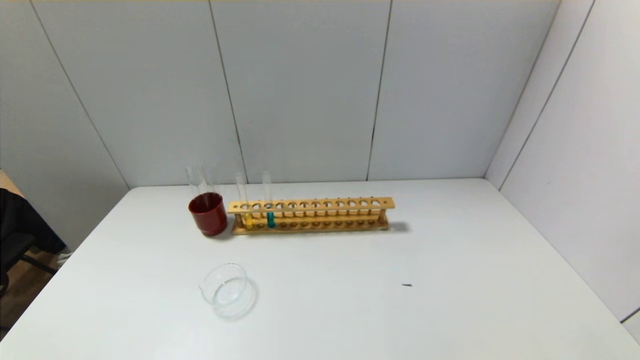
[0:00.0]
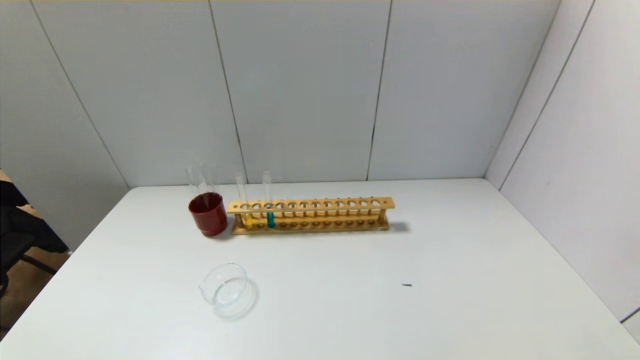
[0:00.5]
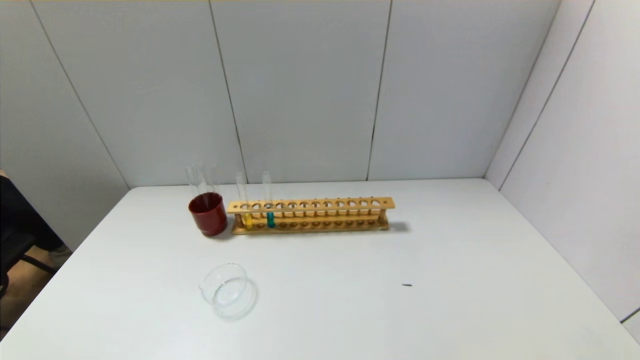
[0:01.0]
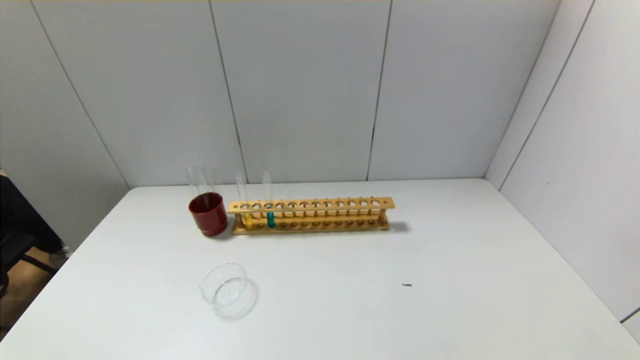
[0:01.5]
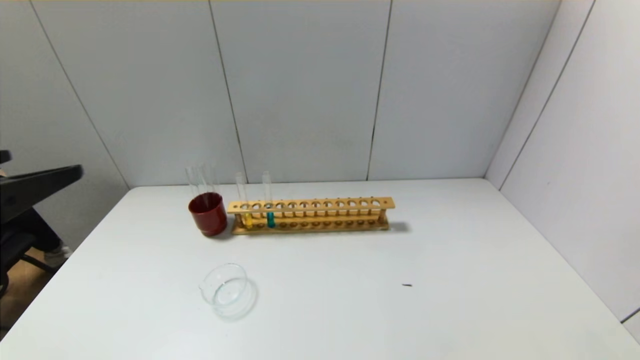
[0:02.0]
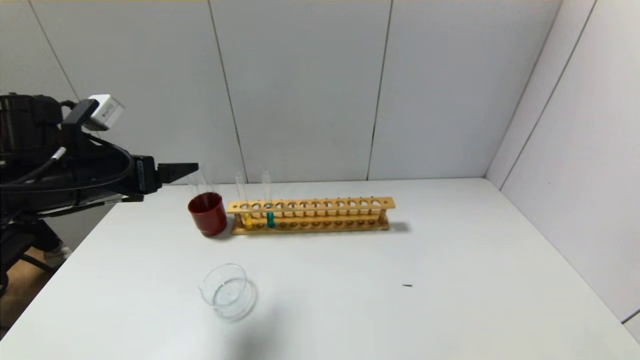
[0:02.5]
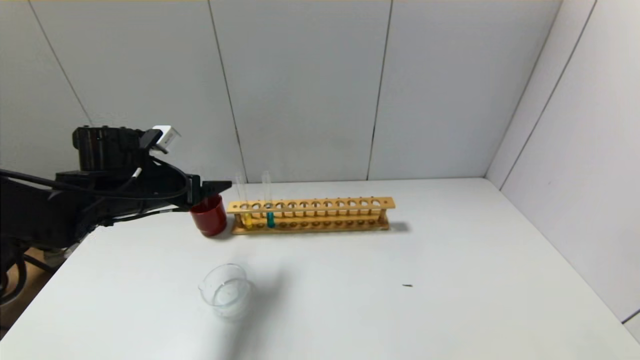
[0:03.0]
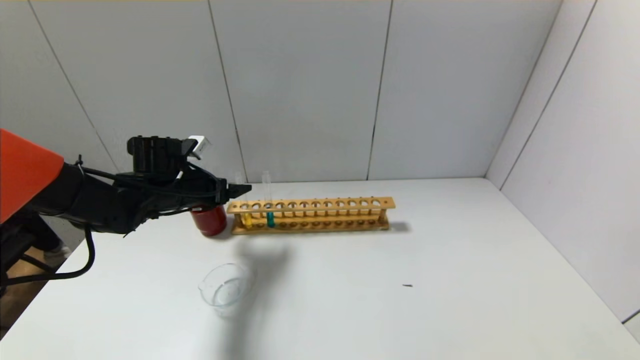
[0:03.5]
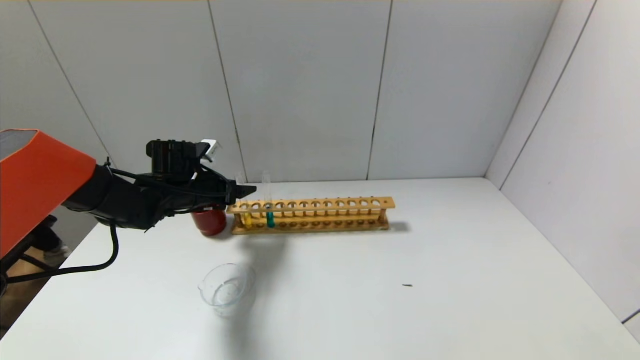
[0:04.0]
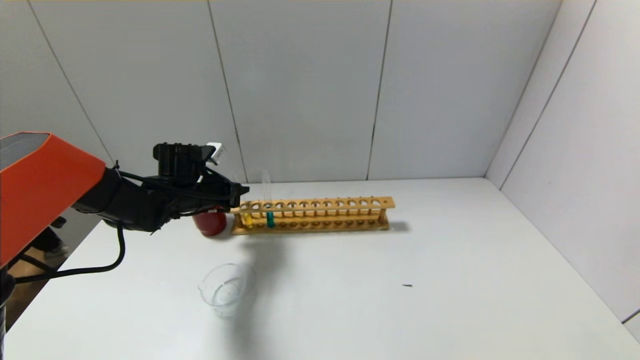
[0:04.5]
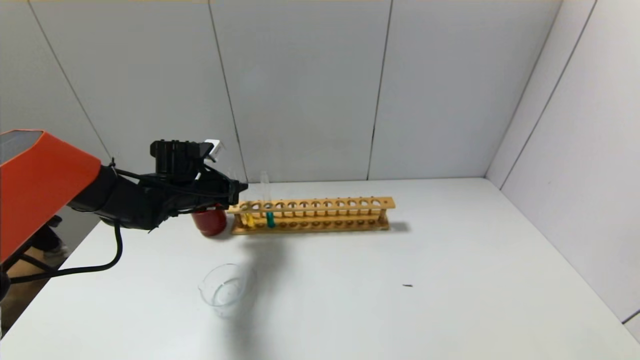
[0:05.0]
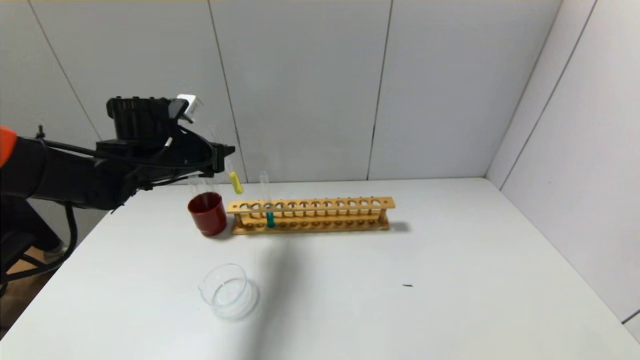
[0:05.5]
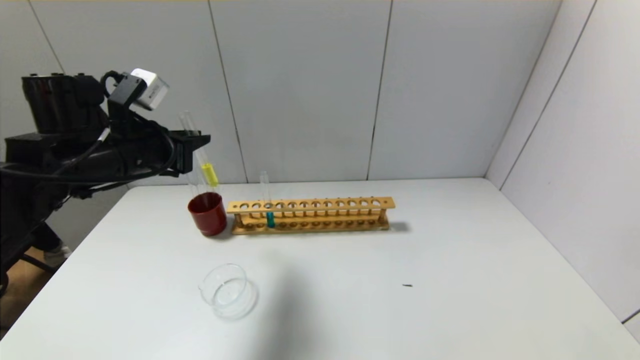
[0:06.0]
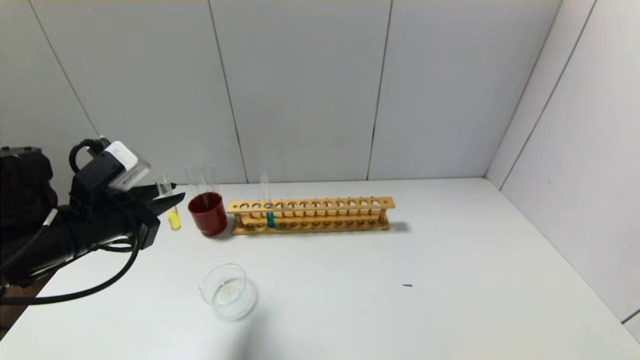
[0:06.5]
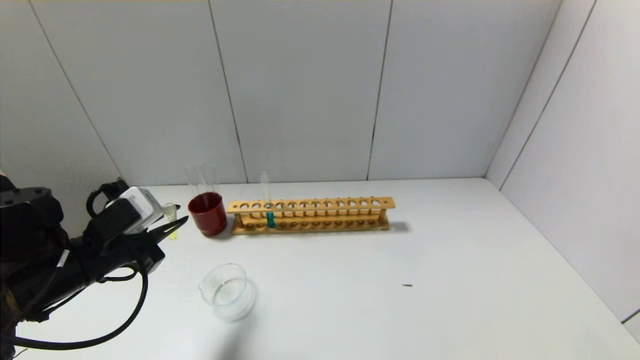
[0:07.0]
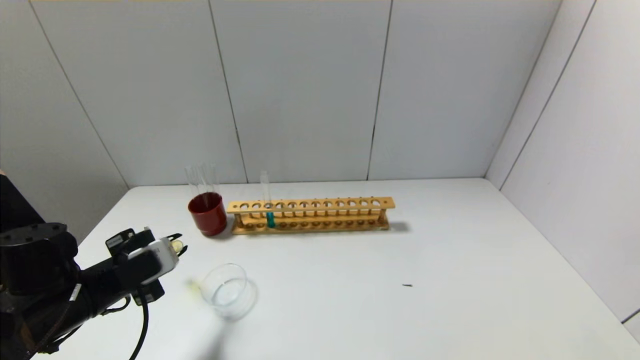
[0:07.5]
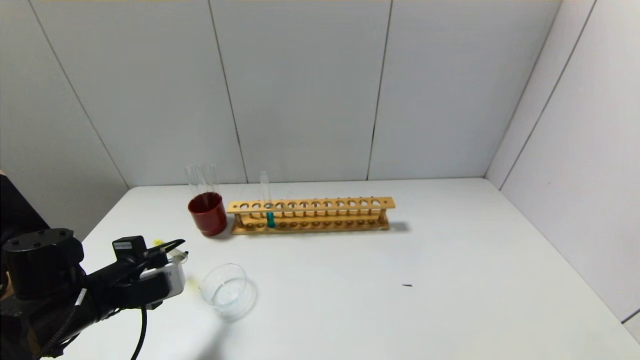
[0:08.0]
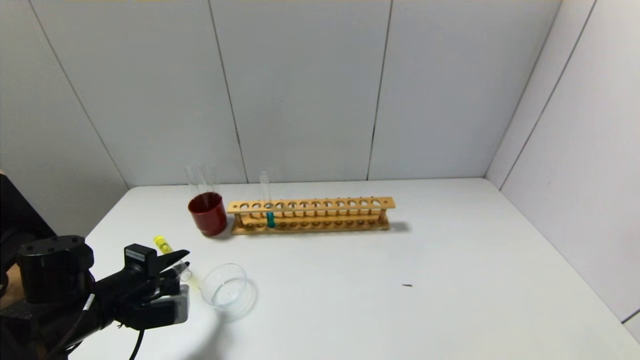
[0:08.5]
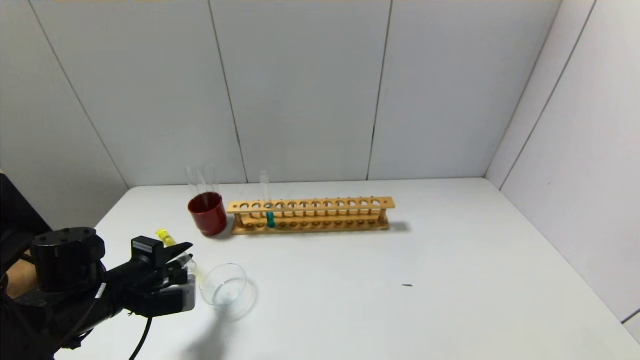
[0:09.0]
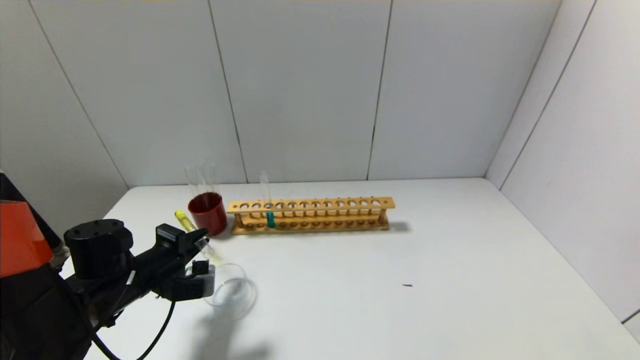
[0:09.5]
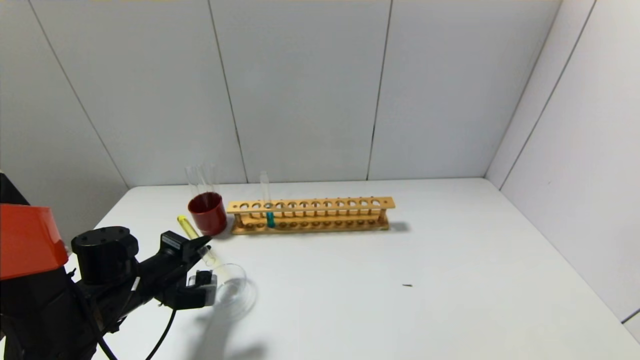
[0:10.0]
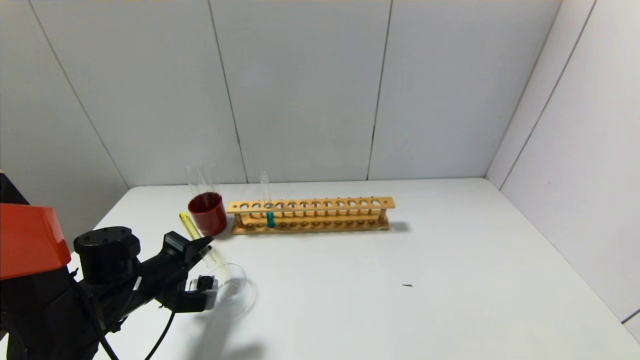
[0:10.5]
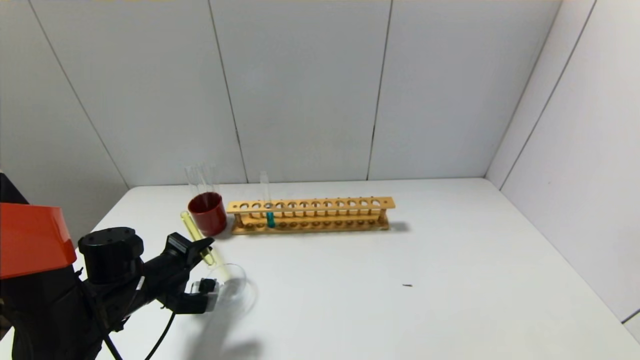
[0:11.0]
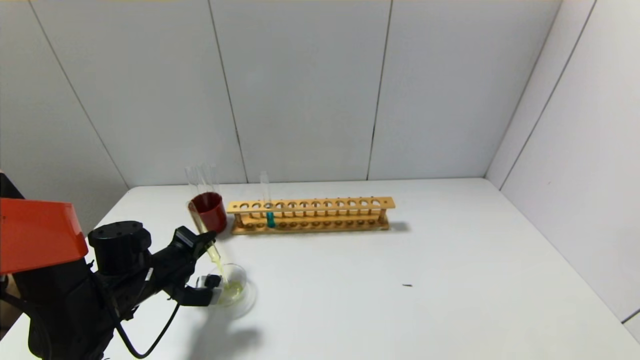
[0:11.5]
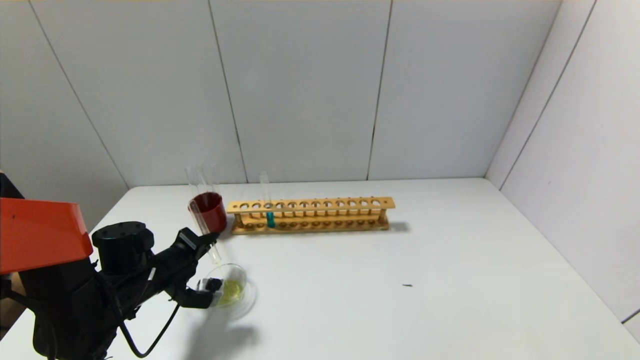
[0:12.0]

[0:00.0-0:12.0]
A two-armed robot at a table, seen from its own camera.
Step, 0:00.0 to 0:04.5: Grasp the yellow reagent with the left gripper.
0:00.0 to 0:02.0: The left gripper moves upward and forward, about 25 cm.
0:02.0 to 0:04.0: The left gripper travels forward and downward by approximately 35 cm.
0:04.0 to 0:06.0: The left gripper is displaced upward and backward by some 15 cm, and closes.
0:06.0 to 0:08.0: The left gripper travels downward and backward by roughly 15 cm.
0:08.0 to 0:10.0: The left gripper shifts by roughly 5 cm.
0:10.0 to 0:12.0: The grippers stay close to where they were, moving slightly.

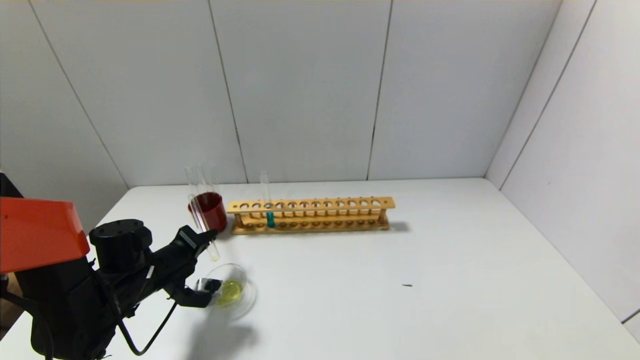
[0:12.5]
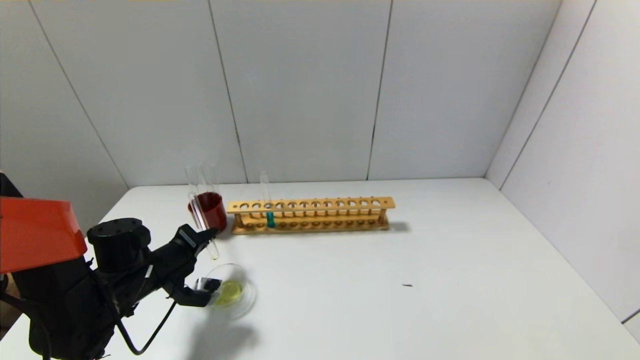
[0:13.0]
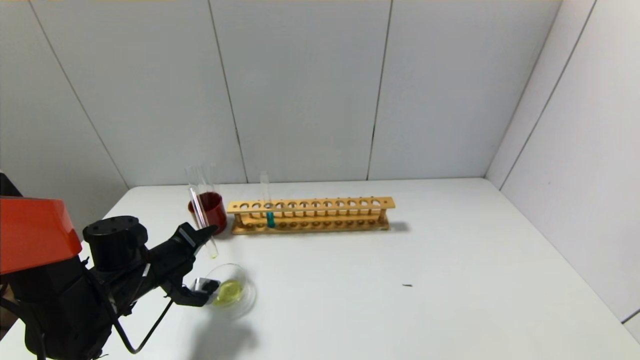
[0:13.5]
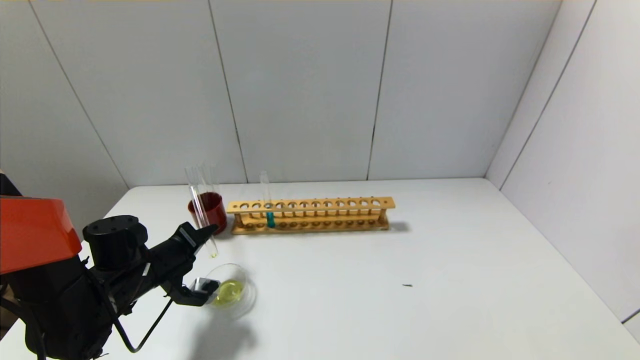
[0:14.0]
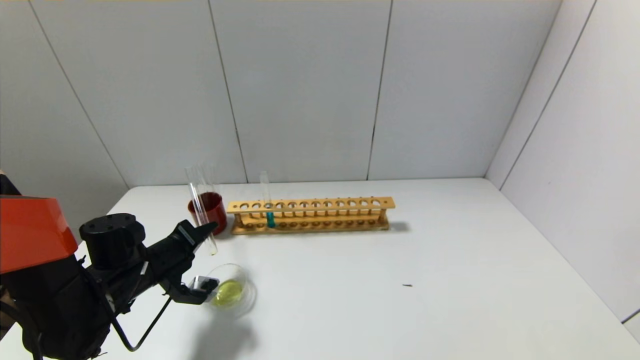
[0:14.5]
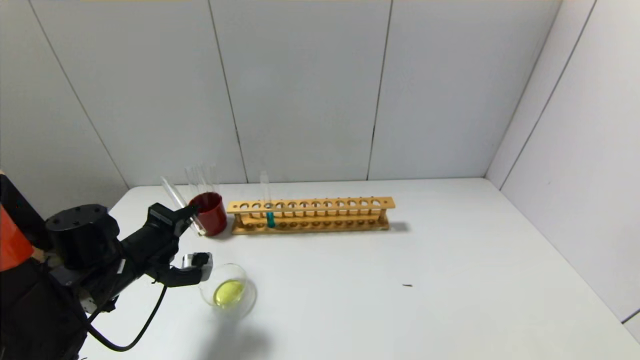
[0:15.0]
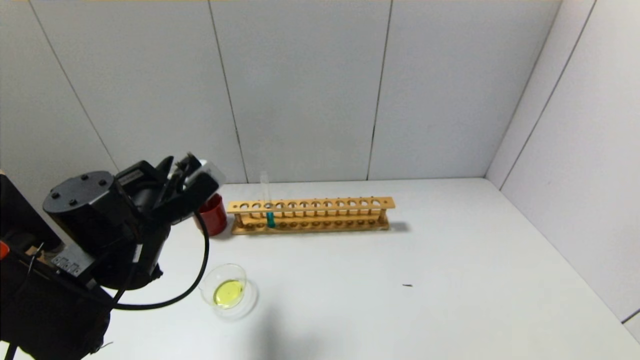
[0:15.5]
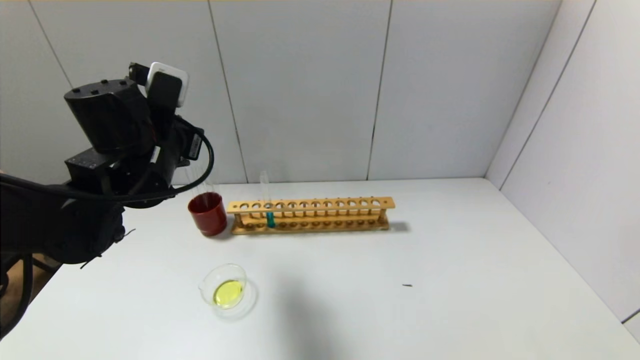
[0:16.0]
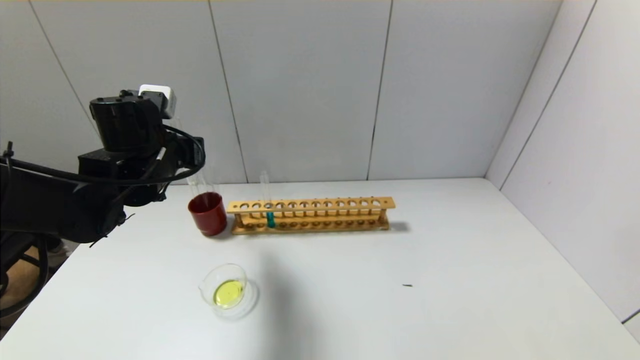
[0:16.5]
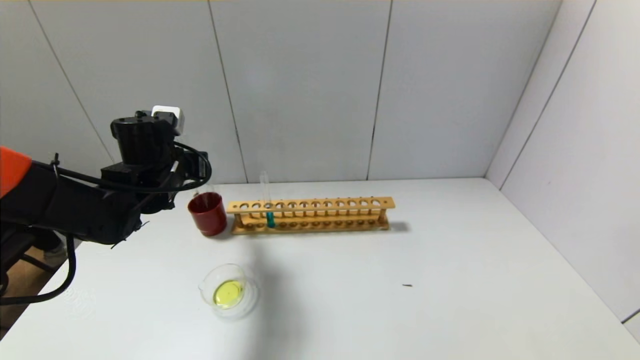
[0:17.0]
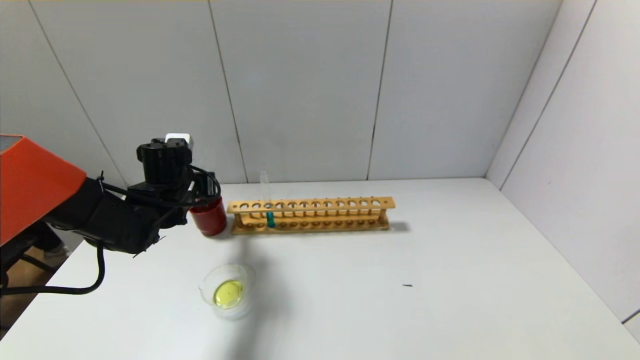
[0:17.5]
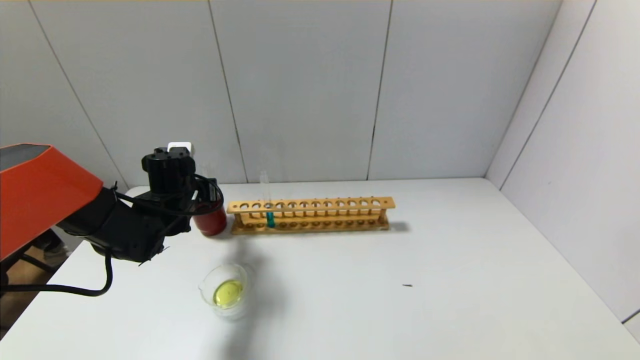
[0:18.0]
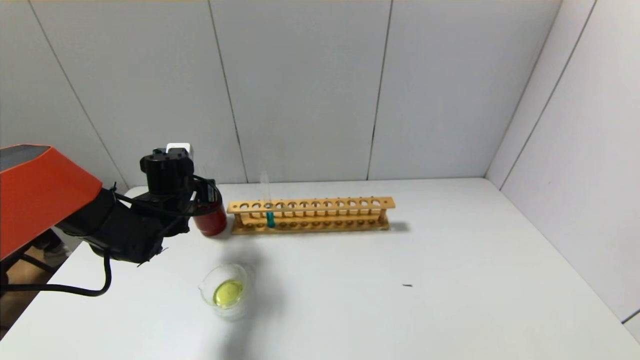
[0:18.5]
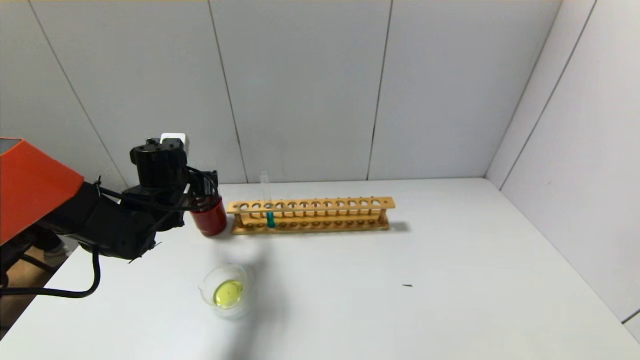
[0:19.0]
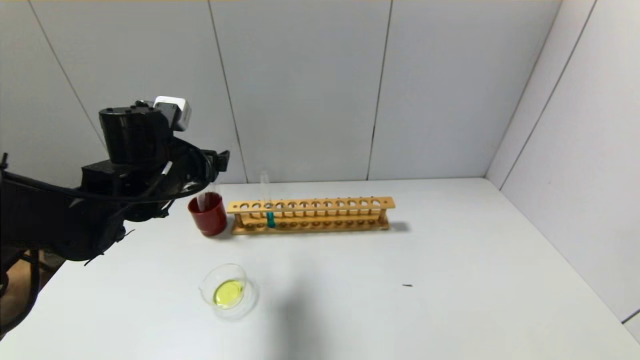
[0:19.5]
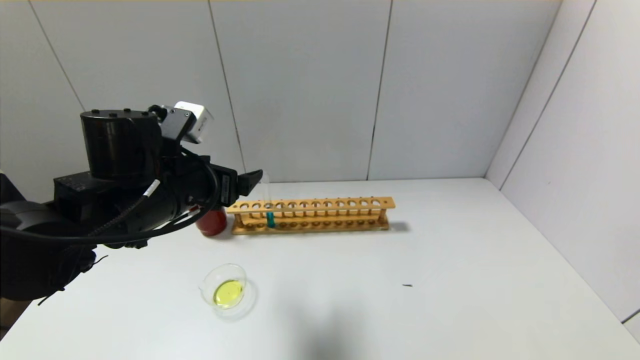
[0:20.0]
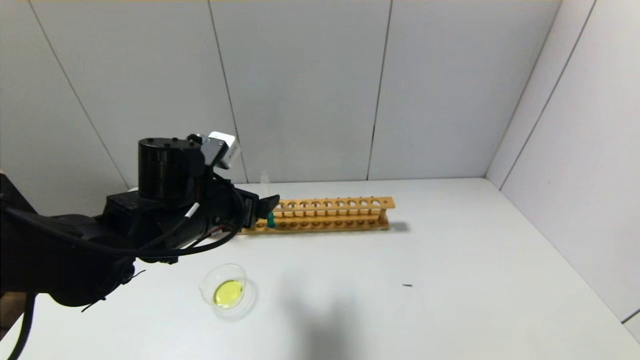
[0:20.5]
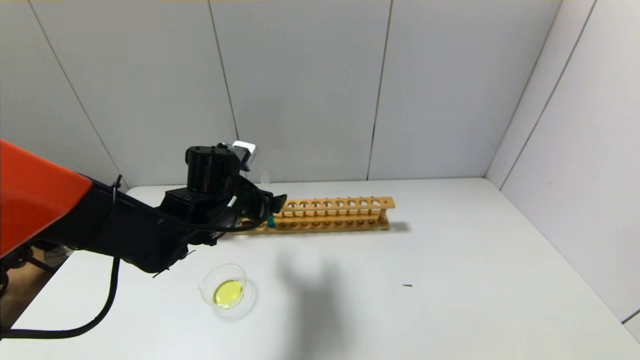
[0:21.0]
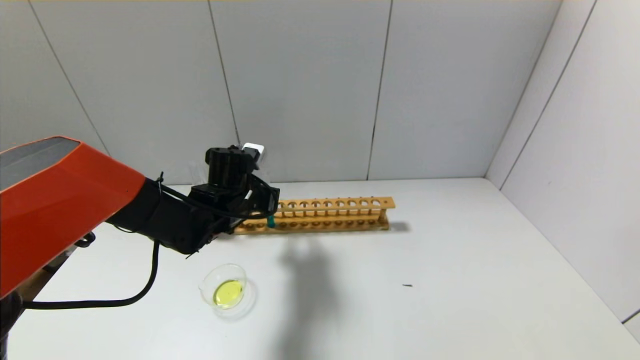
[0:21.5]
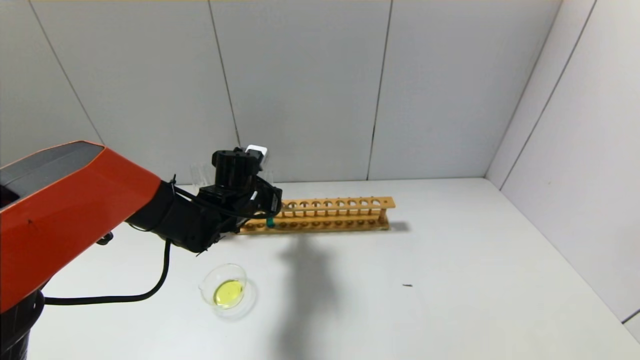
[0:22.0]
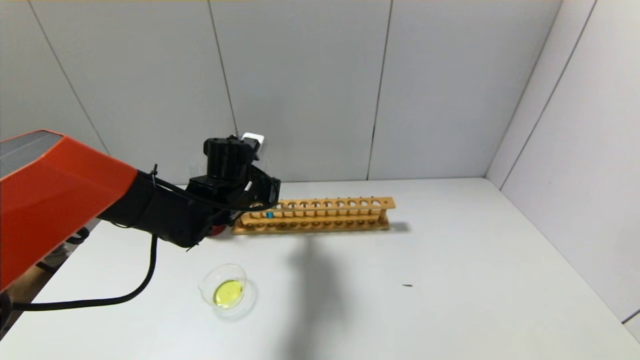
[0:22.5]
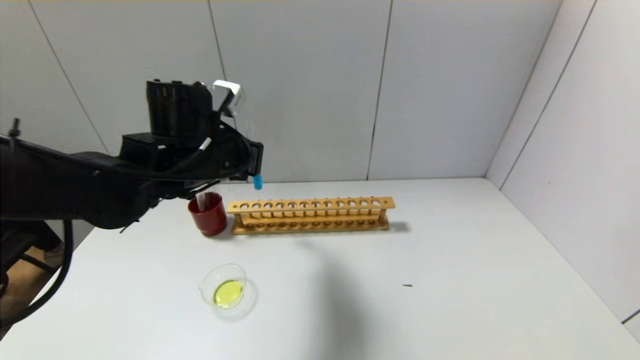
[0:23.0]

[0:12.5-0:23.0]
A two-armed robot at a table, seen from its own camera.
Step, 0:12.5 to 0:14.5: Pour the yellow reagent into the graduated cylinder with the left gripper.
Step, 0:15.0 to 0:18.5: Place the test tube into the brown cup with the left gripper.
Step, 0:19.0 to 0:21.5: Grasp the blue reagent with the left gripper.
0:12.5 to 0:14.5: The grippers move only a little.
0:14.5 to 0:16.5: The left gripper travels upward by roughly 15 cm.
0:16.5 to 0:19.0: The left gripper moves downward, approximately 5 cm, and opens.
0:19.0 to 0:21.0: The left gripper goes roughly 10 cm to the right, and goes backward and returns, approximately 10 cm each way.
0:21.0 to 0:23.0: The left gripper moves upward, about 10 cm, and closes.
